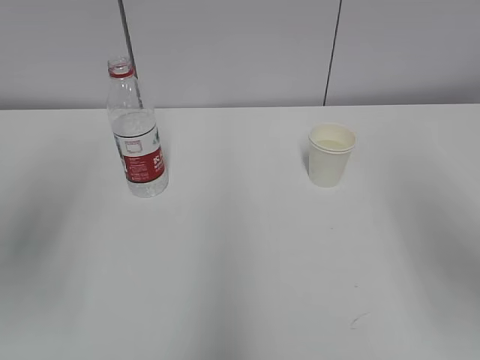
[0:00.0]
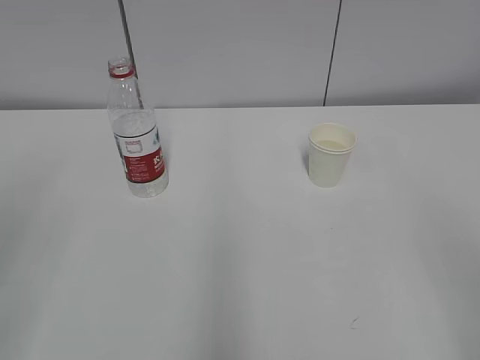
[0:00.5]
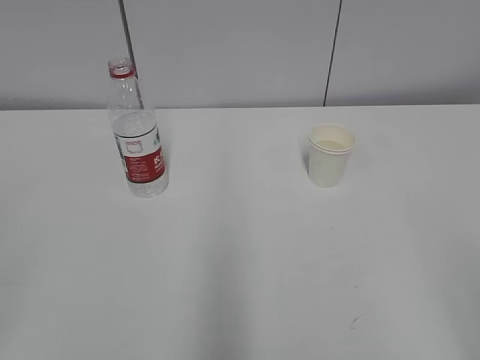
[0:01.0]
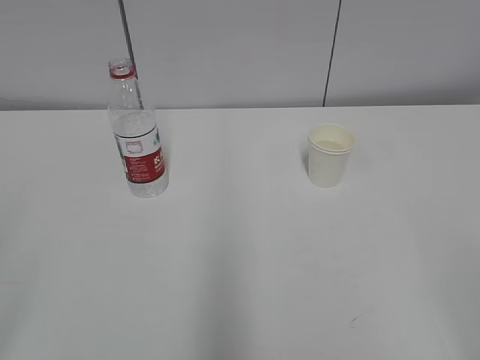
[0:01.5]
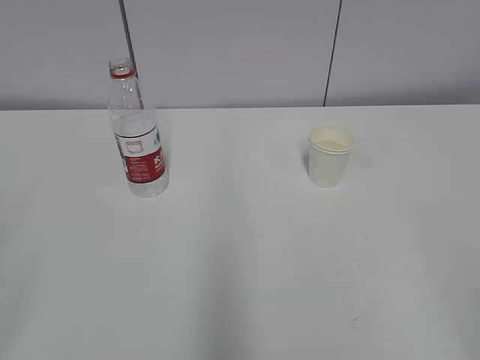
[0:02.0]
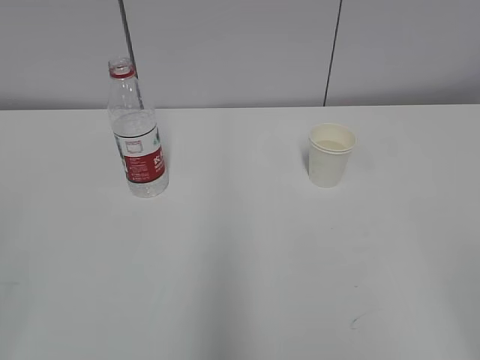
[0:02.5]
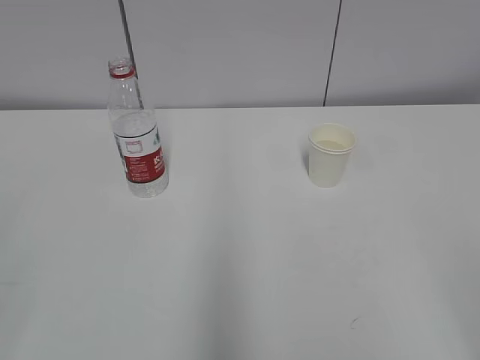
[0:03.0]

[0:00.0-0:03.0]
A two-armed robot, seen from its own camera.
0:00.0 to 0:01.5: The left gripper shifts some 20 cm backward.
